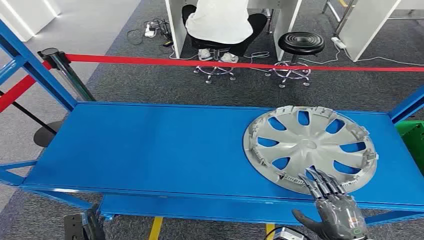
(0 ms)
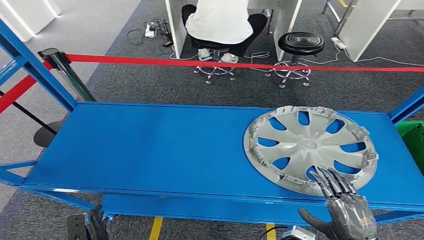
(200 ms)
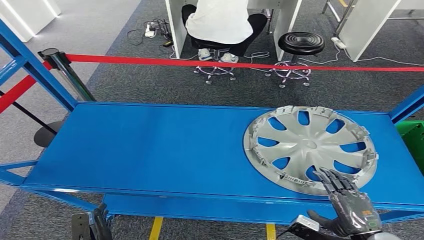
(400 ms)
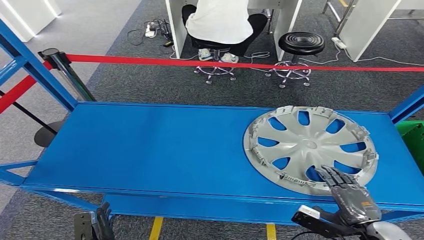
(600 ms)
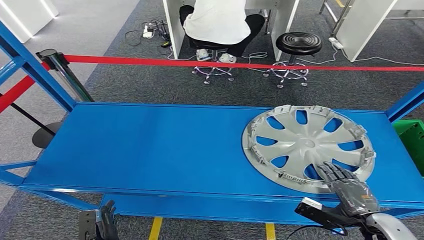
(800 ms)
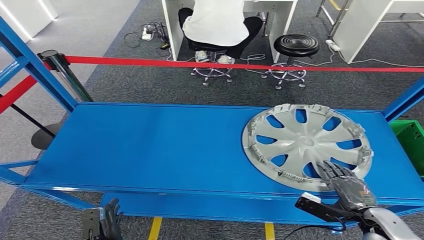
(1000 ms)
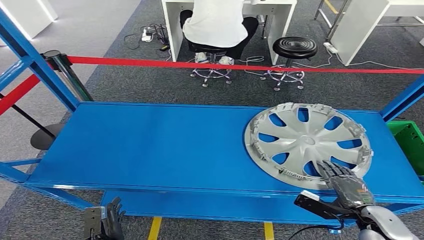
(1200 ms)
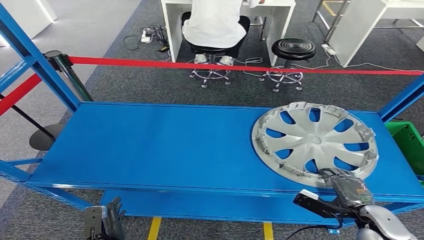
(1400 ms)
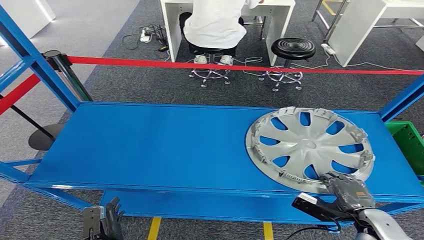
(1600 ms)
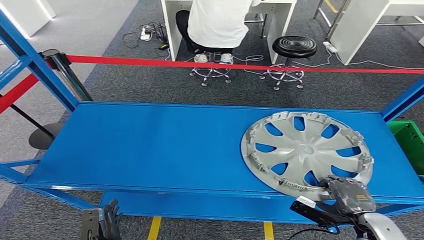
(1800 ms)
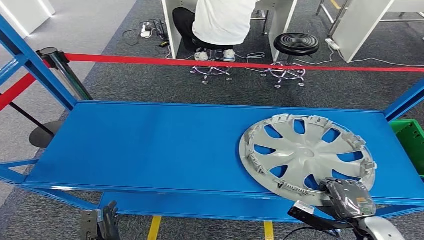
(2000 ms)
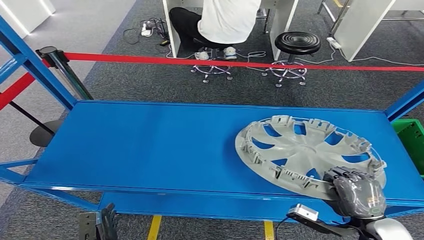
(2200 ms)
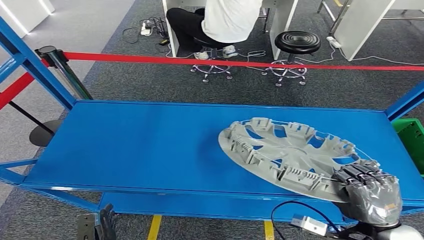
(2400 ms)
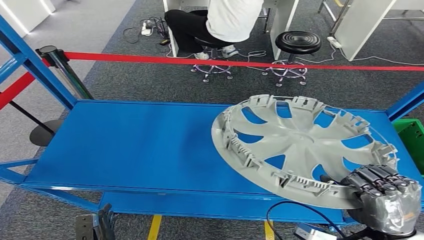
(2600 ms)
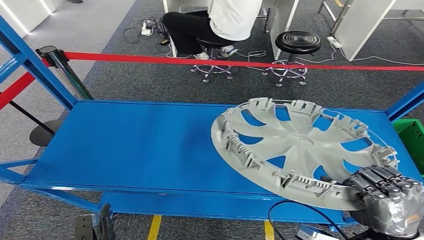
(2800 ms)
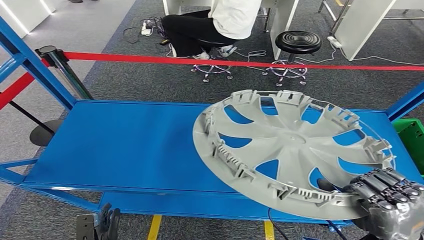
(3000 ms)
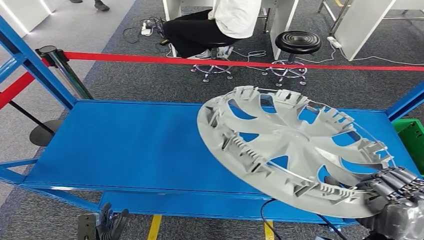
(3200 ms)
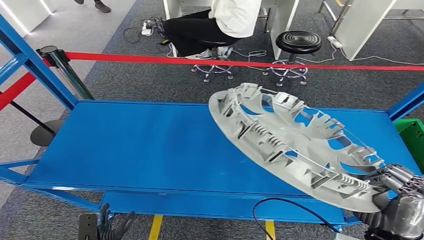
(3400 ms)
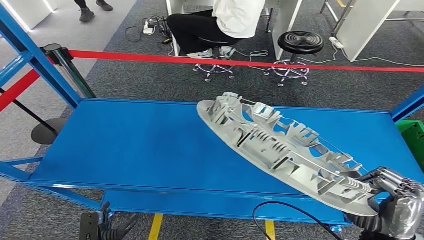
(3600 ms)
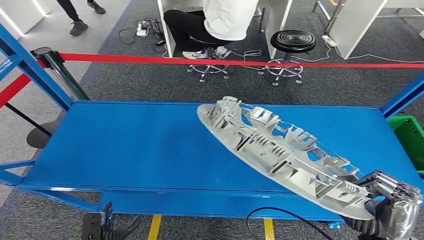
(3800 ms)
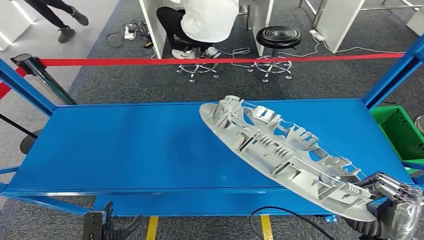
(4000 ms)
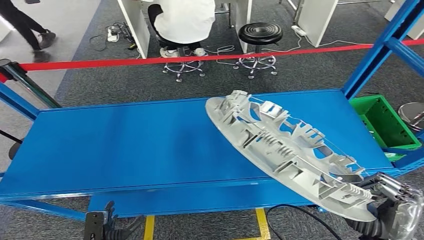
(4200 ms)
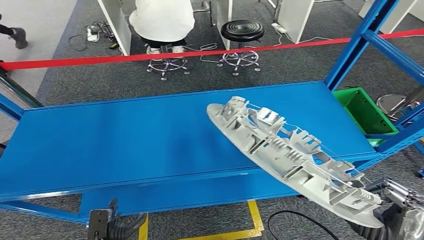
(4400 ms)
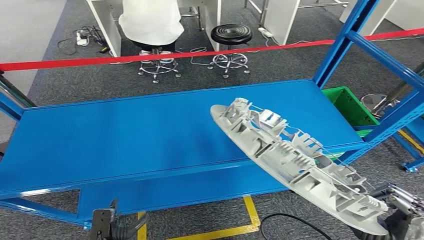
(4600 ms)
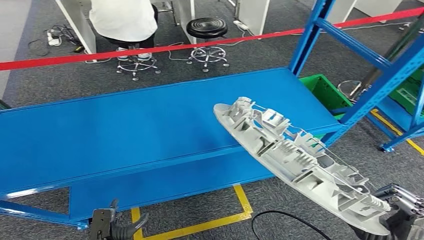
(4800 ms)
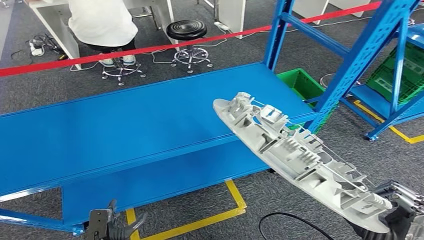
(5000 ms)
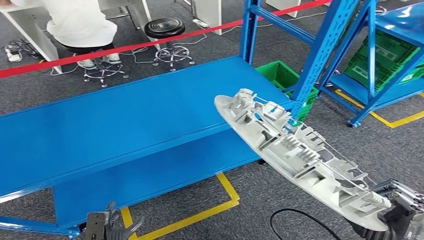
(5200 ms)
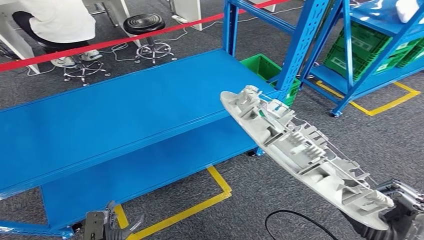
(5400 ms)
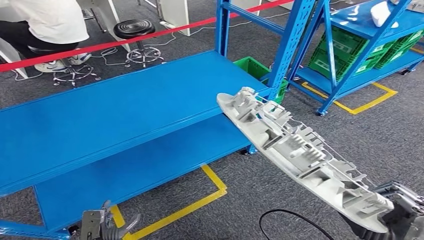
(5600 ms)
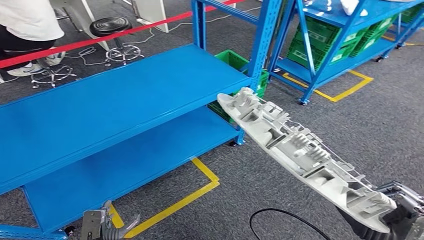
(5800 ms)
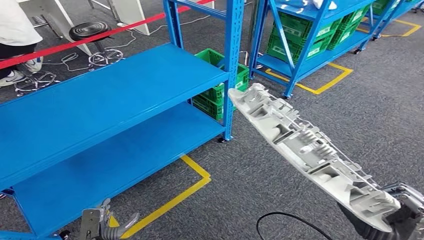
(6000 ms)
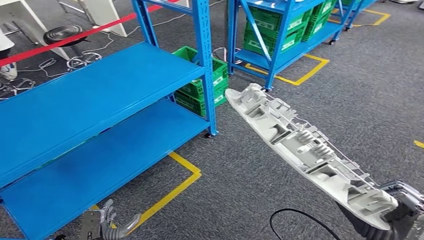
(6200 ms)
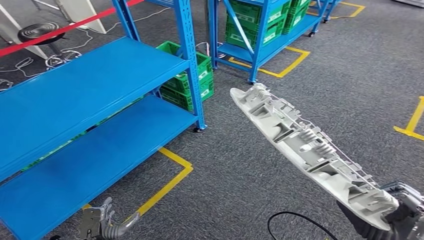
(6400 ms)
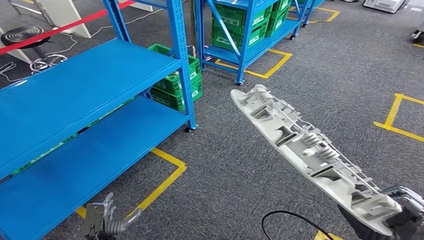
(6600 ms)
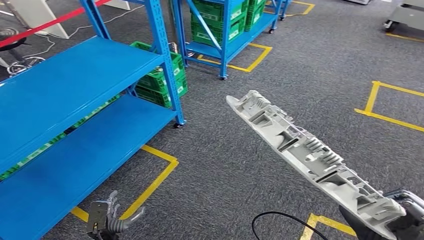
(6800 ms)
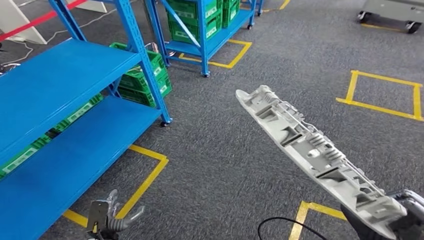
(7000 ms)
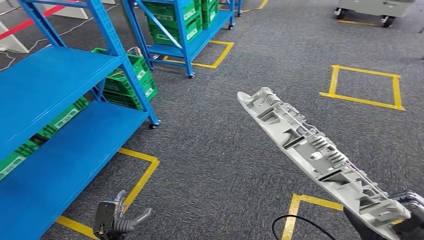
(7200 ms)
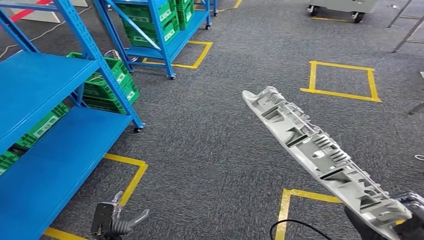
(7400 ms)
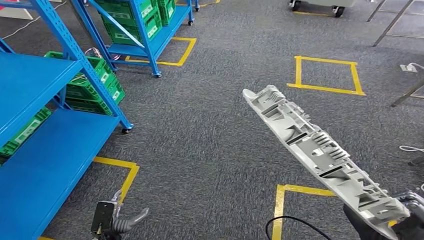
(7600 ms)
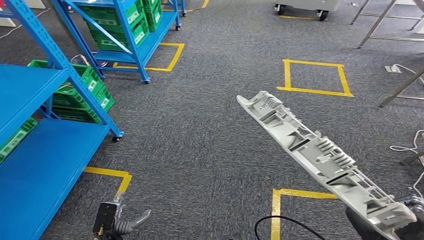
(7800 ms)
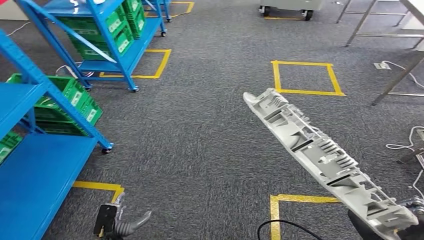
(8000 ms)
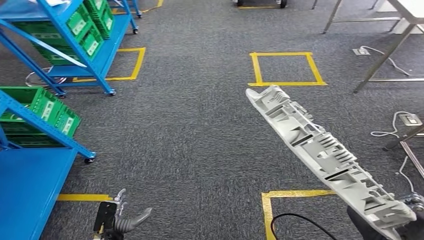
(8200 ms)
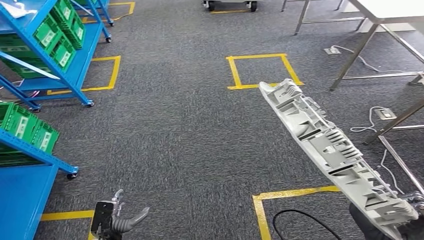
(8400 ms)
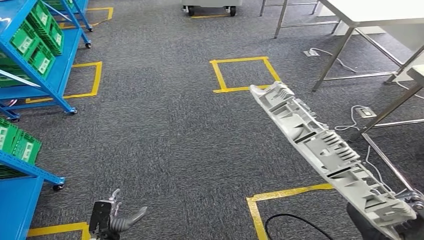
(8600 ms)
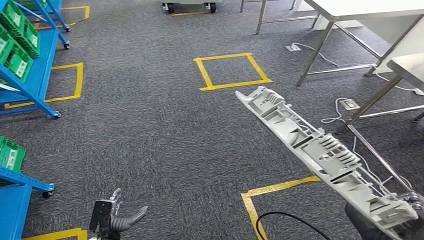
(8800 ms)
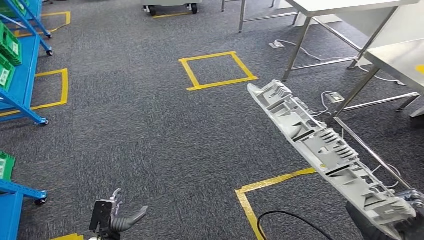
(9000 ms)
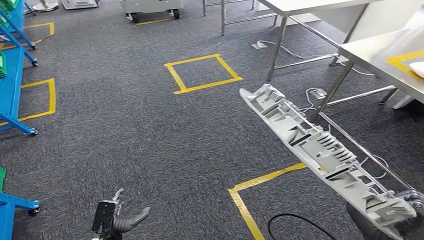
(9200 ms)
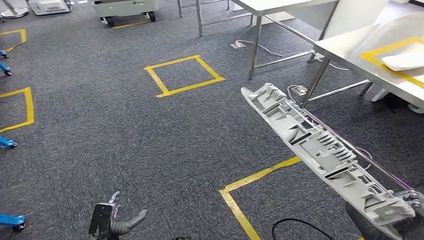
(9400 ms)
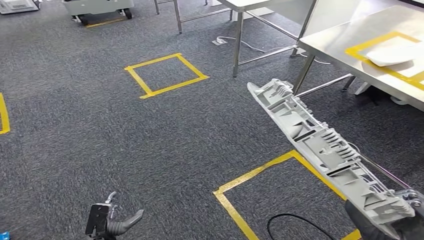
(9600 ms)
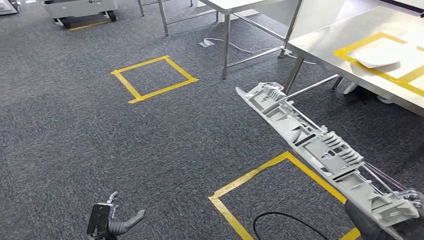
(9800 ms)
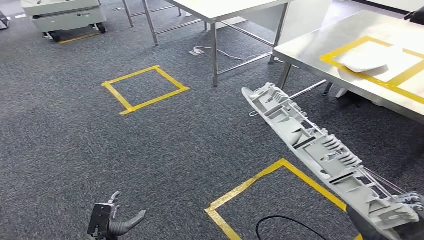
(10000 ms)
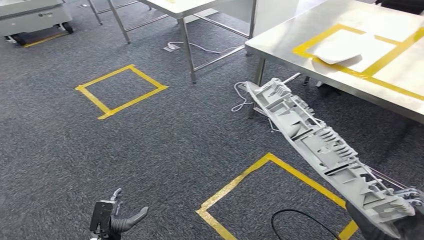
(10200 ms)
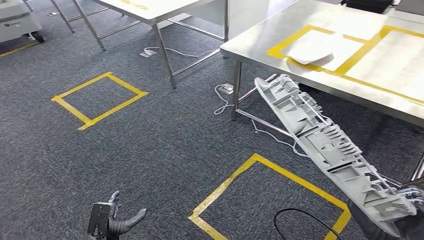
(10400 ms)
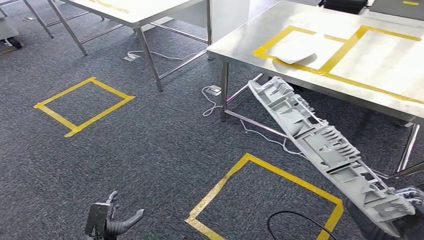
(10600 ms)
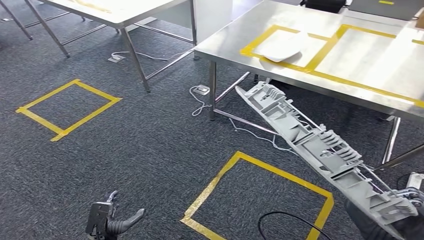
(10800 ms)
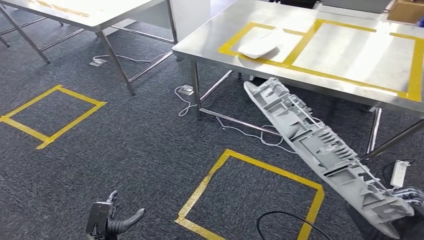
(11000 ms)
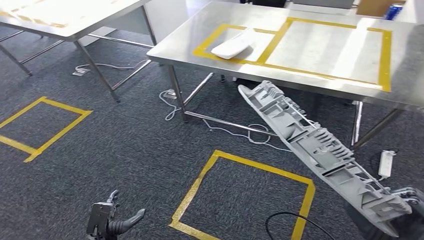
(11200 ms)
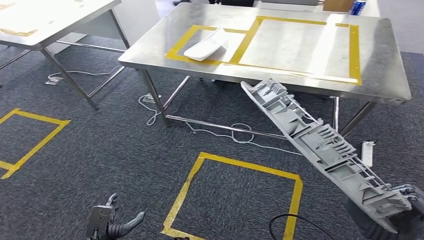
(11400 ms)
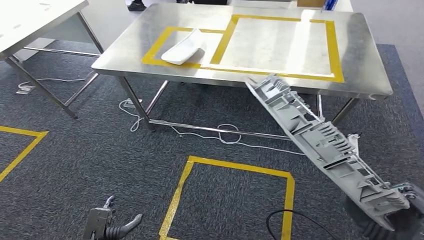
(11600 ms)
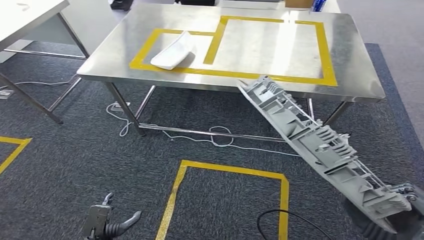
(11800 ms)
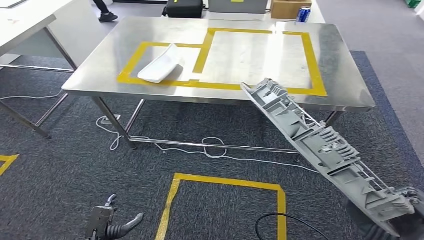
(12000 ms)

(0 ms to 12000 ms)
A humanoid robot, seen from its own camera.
Step, 0 ms - 5000 ms: Pick up the small parts from the shelf.

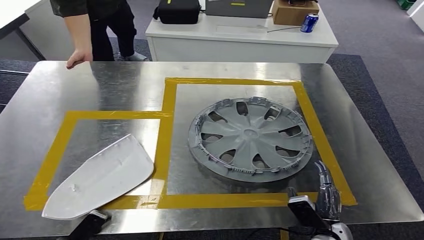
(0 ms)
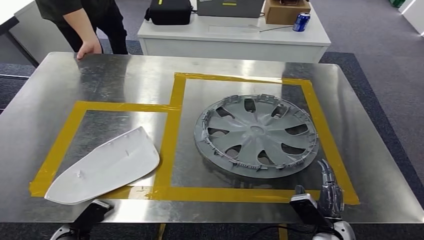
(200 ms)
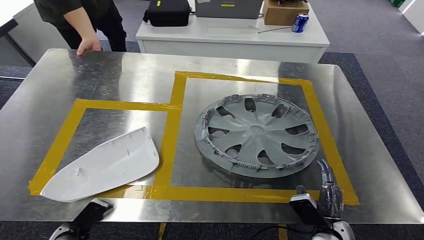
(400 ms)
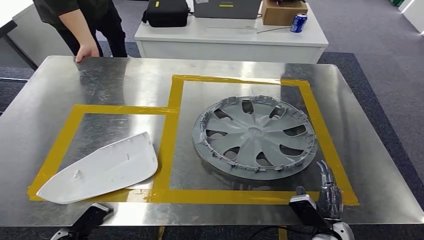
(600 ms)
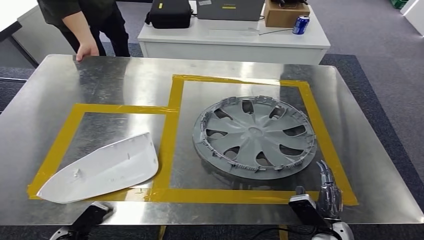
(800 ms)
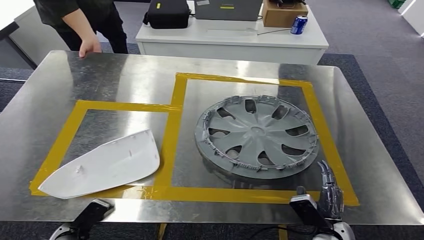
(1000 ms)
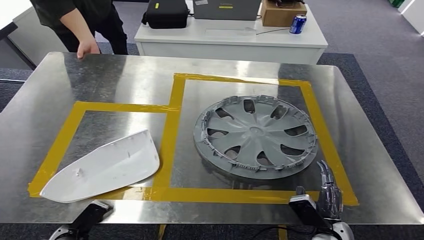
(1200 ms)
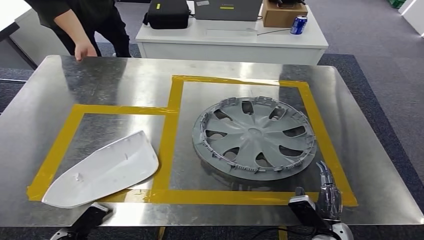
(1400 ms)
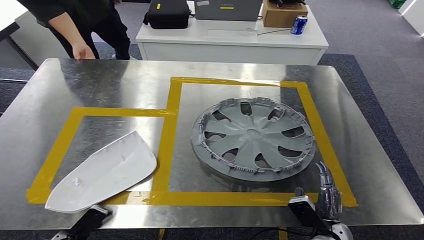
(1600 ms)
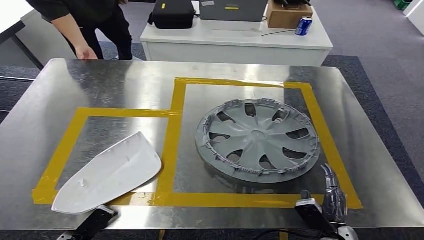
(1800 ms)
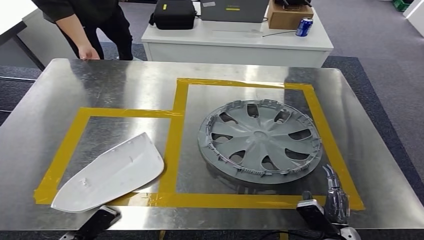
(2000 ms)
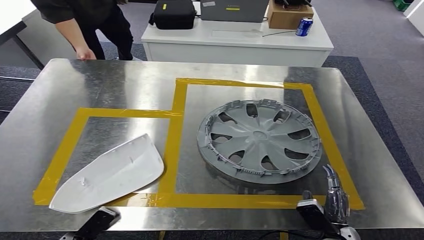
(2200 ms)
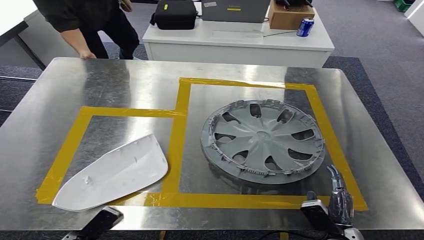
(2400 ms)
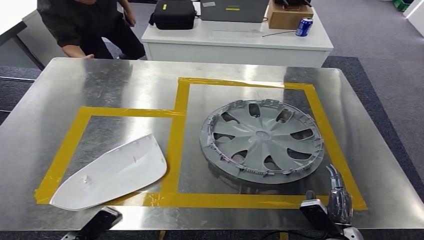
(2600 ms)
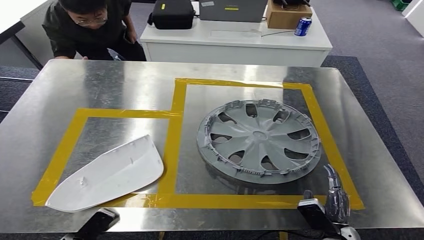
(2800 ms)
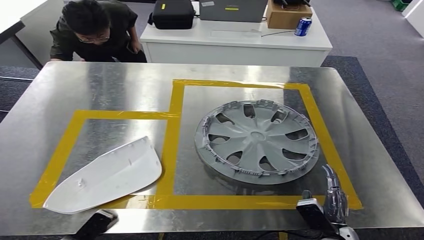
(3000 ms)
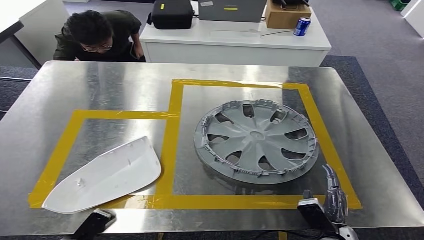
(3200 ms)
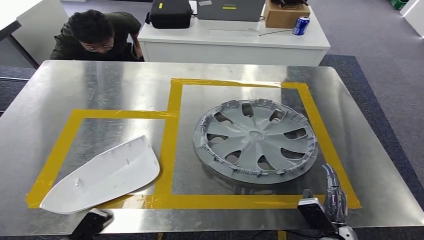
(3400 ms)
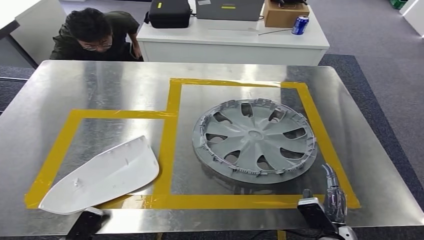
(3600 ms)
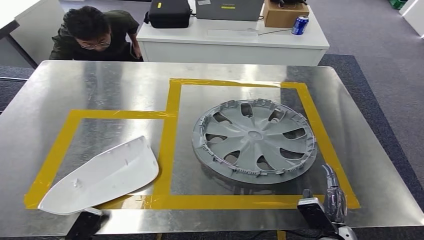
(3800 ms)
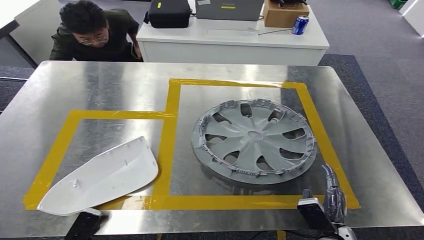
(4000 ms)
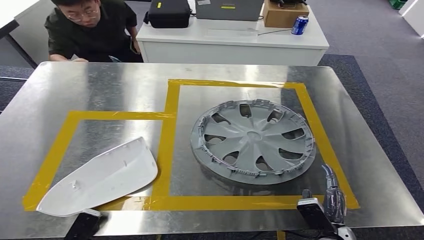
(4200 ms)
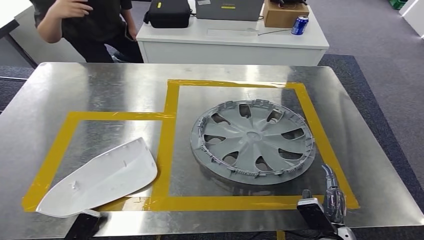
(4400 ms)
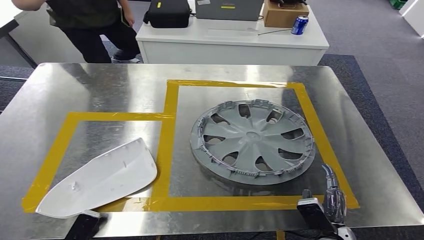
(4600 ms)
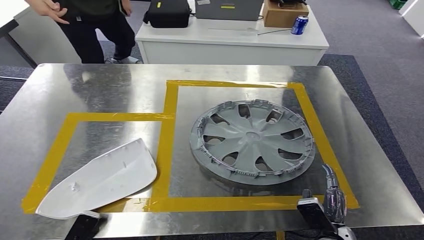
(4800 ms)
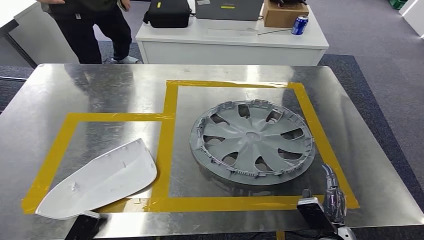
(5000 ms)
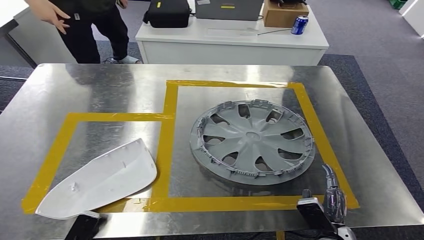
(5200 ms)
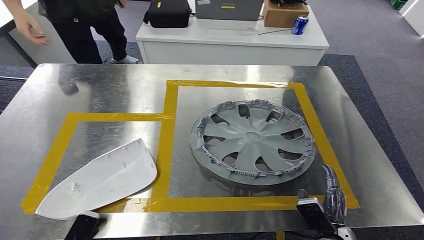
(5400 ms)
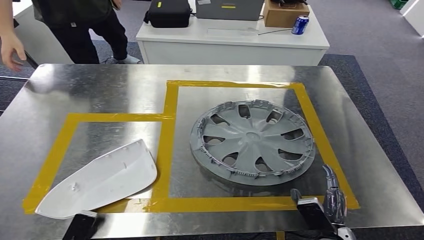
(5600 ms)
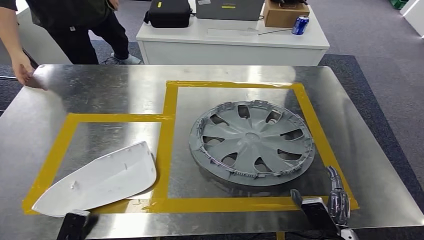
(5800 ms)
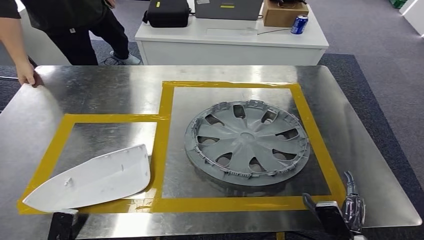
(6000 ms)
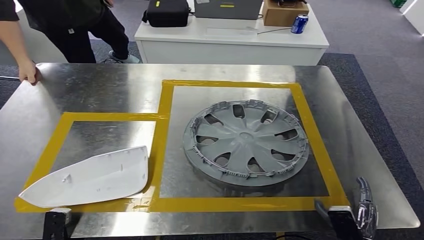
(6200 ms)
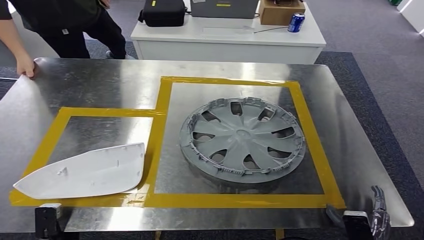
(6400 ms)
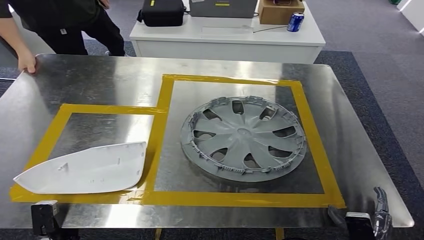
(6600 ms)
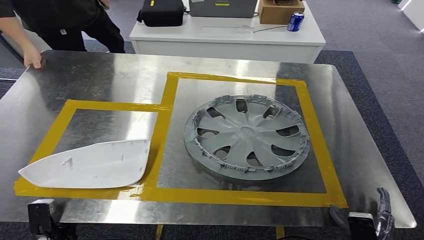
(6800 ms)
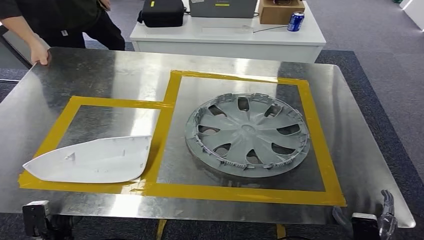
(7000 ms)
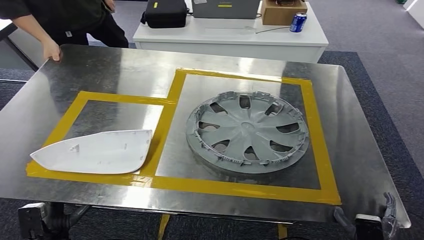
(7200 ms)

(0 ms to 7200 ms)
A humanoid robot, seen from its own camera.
2800 ms - 5800 ms: The hands move only a little.
